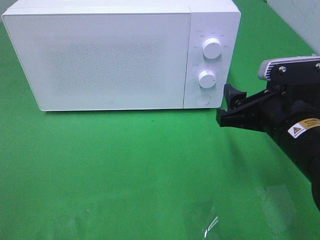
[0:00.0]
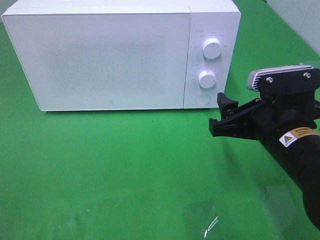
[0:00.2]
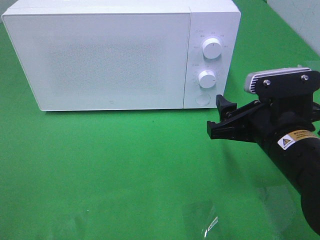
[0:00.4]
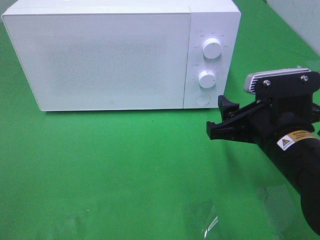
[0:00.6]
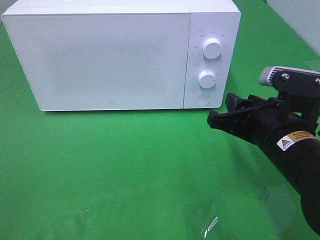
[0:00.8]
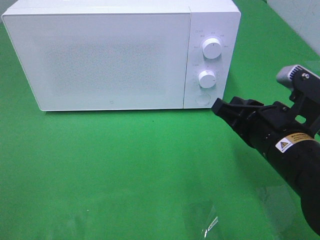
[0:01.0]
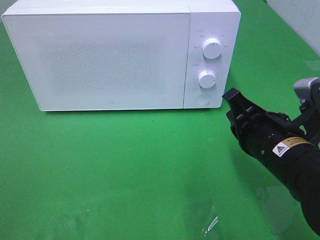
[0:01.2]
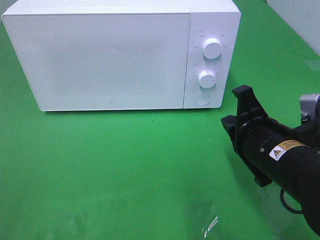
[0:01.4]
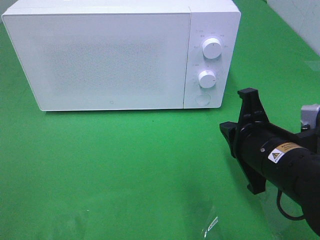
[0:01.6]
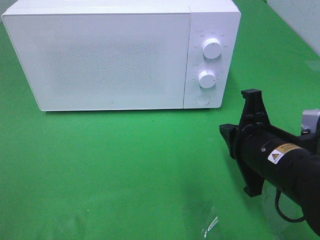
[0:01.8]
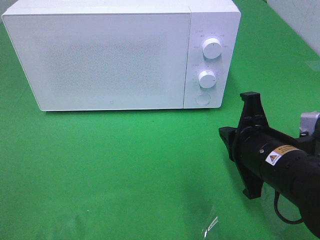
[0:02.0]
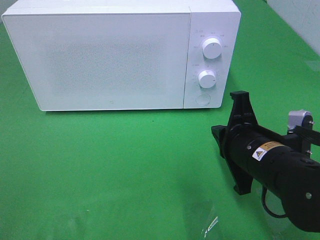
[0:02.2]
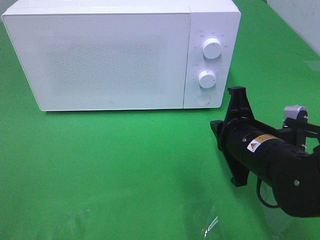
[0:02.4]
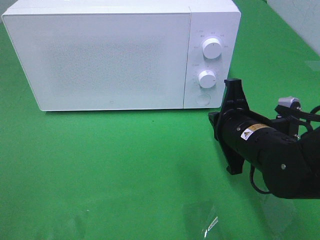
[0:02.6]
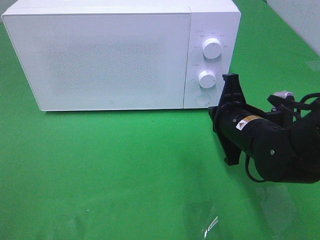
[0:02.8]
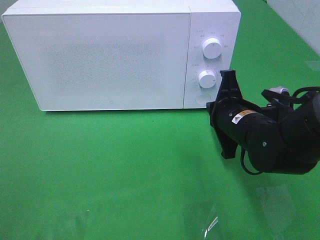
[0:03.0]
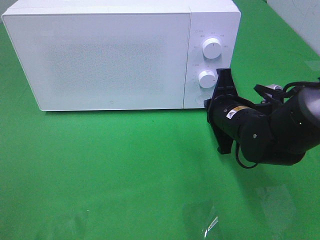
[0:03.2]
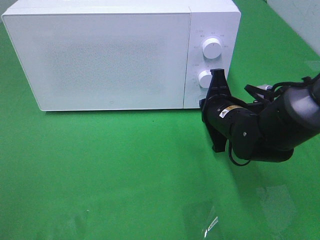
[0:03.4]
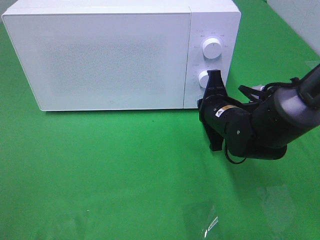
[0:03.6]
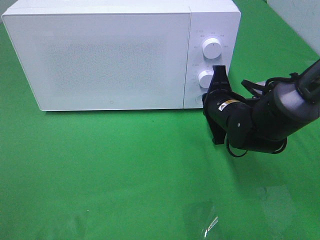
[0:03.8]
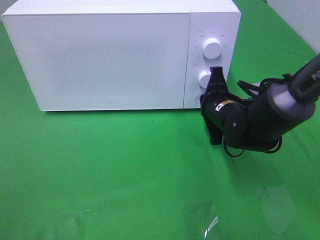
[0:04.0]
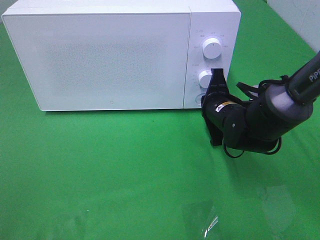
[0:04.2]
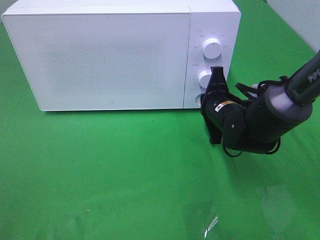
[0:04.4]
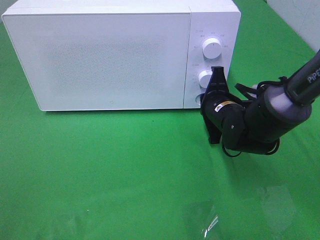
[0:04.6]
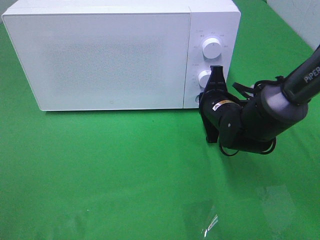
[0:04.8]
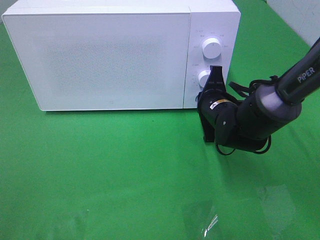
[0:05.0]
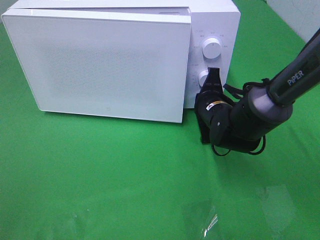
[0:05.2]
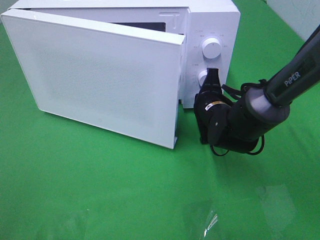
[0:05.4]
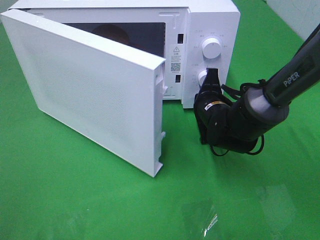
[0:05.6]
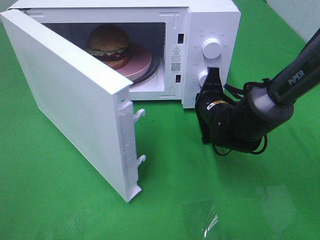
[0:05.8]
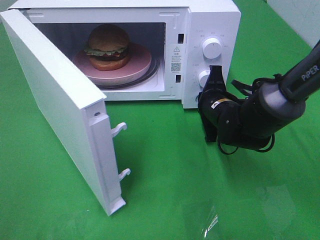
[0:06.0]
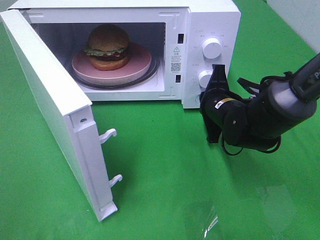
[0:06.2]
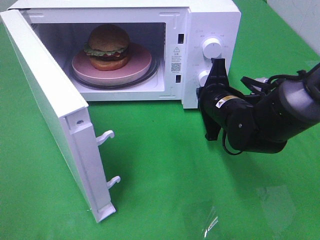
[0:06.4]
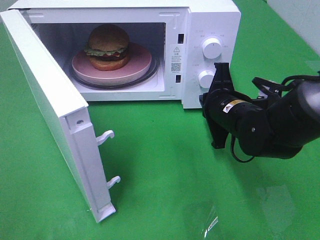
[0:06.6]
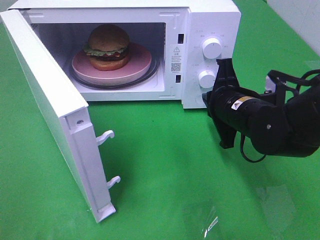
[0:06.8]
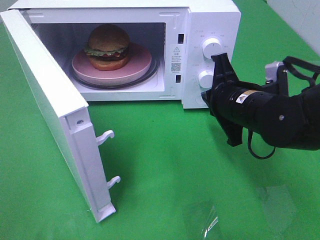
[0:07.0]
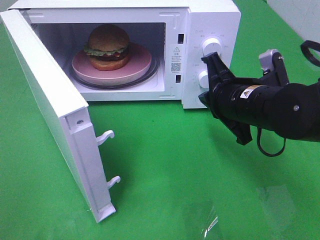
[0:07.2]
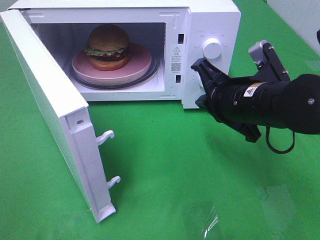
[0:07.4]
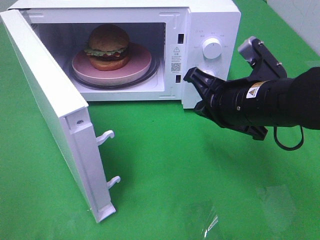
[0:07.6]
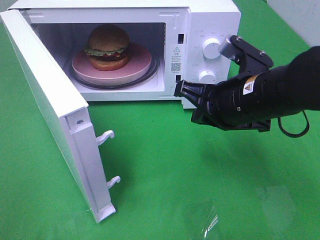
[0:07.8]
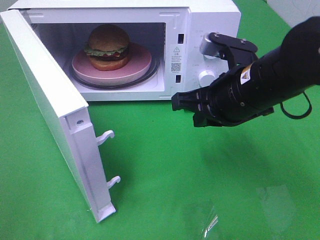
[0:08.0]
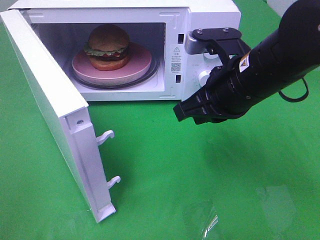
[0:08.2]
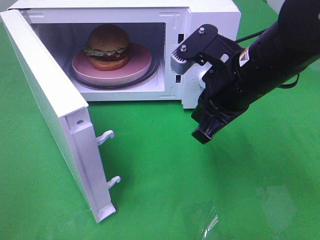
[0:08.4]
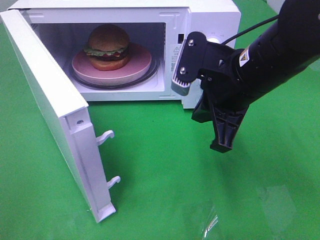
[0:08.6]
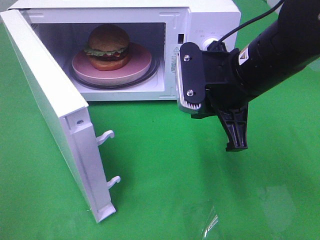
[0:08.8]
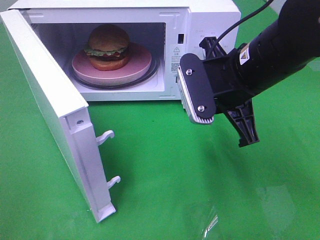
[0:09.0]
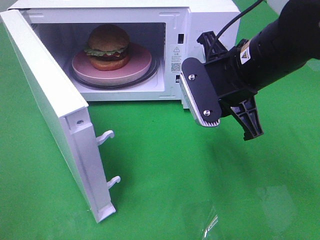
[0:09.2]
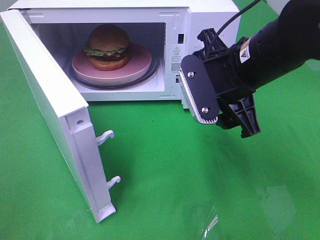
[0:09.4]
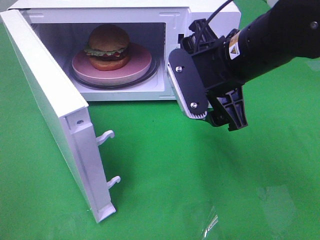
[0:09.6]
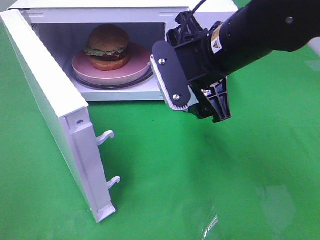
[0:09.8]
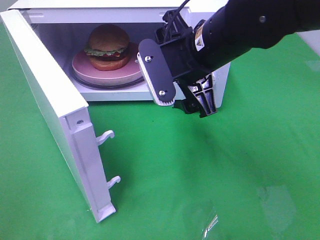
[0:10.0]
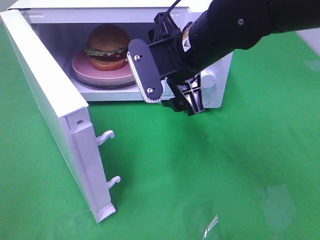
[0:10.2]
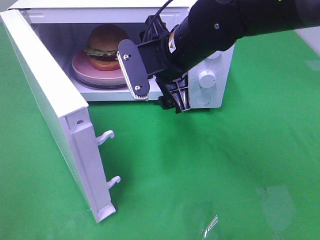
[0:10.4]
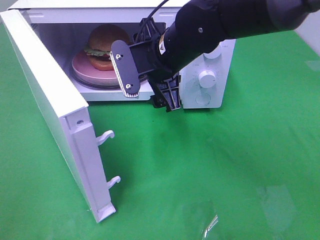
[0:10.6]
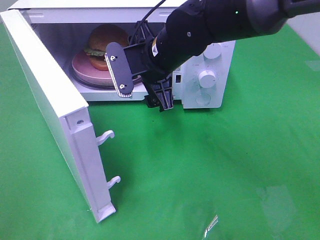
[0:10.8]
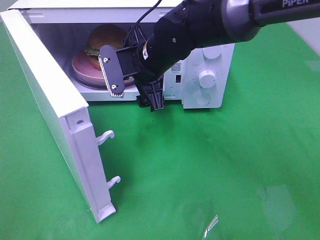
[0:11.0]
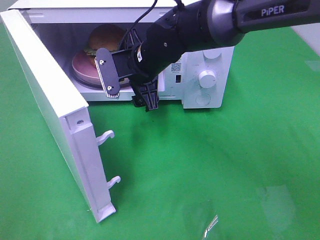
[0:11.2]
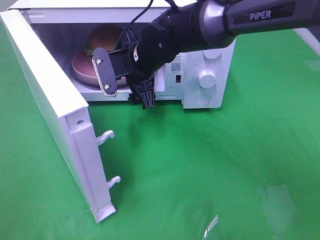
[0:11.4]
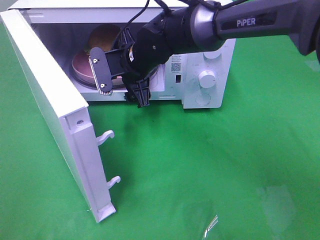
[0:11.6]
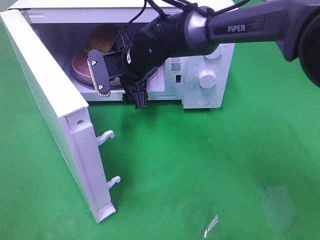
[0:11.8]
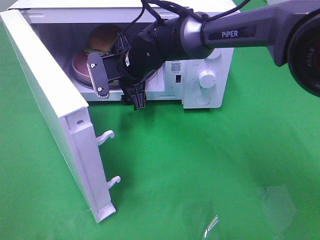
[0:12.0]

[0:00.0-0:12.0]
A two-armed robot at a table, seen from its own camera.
Task of the whole recording: Heat the burger.
Step, 0:00.0 to 0:06.2: Right hand: press the switch.
0:00.0 to 0:01.6: The right gripper closes up.
0:01.6 to 0:03.0: The right gripper travels forward by roughly 10 cm.
0:03.0 to 0:04.4: The right gripper shifts approximately 5 cm forward.
0:06.0 to 0:07.6: The right gripper heads upward and backward, covering some 15 cm.
0:07.6 to 0:09.0: The right gripper moves some 5 cm.
0:09.0 to 0:10.4: The right gripper goes approximately 10 cm to the left and forward, and opens up.
0:10.4 to 0:12.0: The right gripper goes some 15 cm forward, downward and to the left.

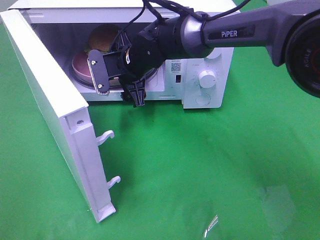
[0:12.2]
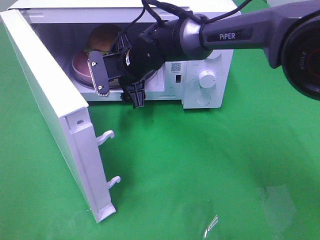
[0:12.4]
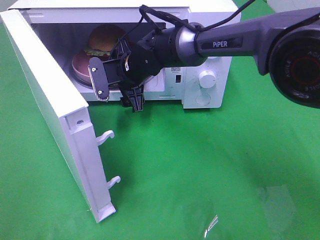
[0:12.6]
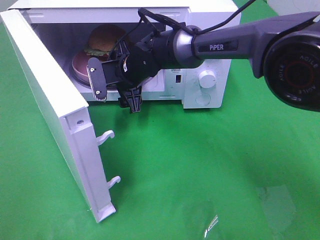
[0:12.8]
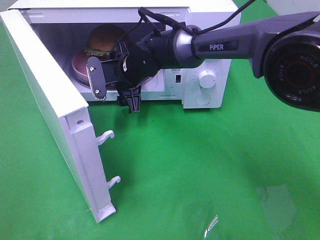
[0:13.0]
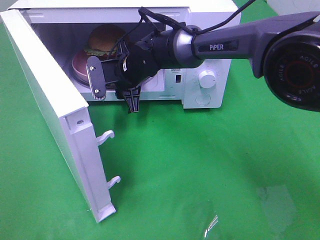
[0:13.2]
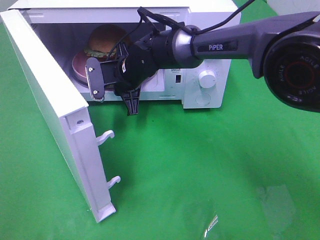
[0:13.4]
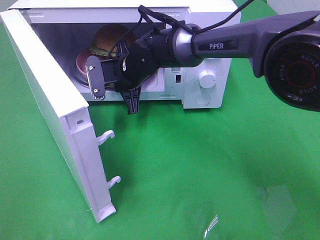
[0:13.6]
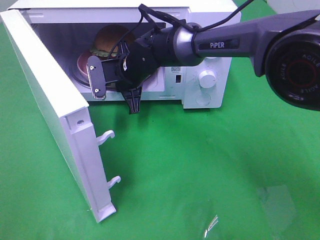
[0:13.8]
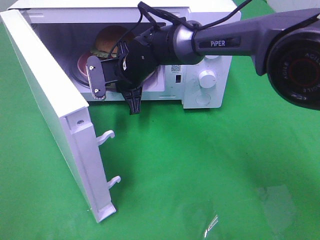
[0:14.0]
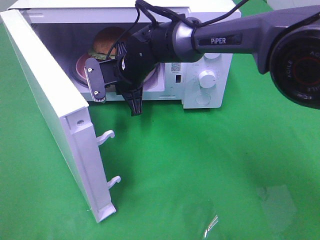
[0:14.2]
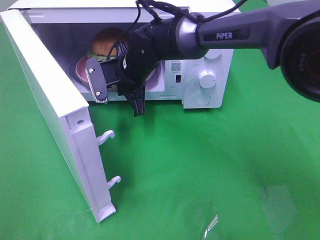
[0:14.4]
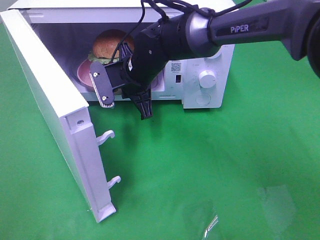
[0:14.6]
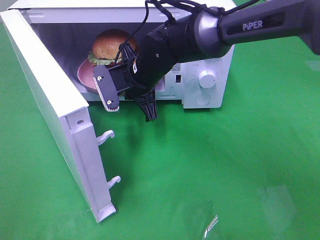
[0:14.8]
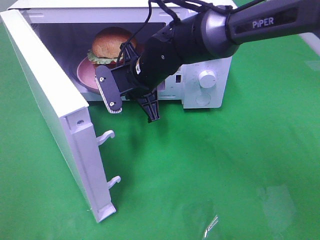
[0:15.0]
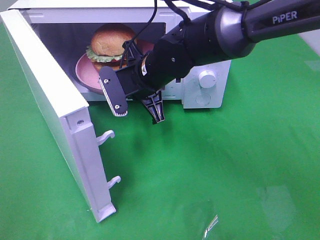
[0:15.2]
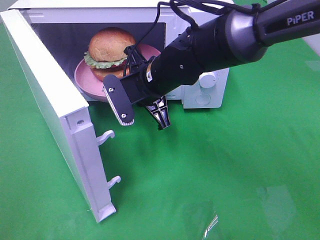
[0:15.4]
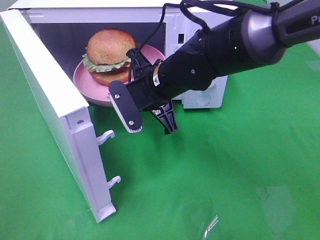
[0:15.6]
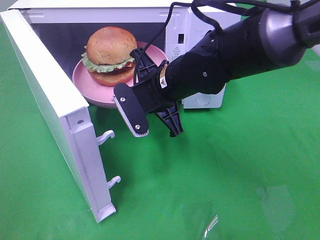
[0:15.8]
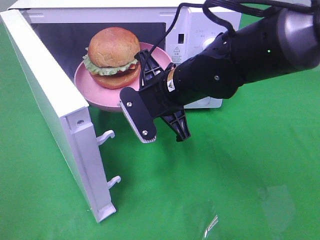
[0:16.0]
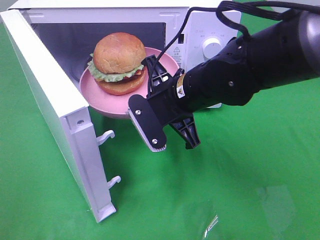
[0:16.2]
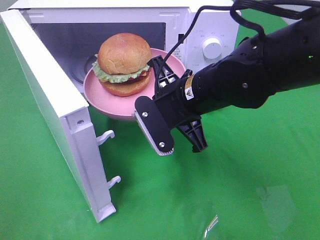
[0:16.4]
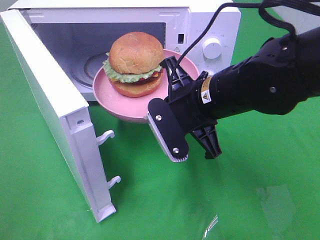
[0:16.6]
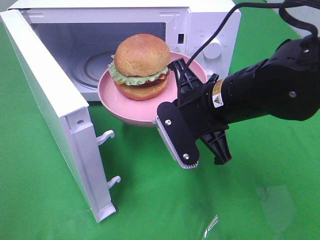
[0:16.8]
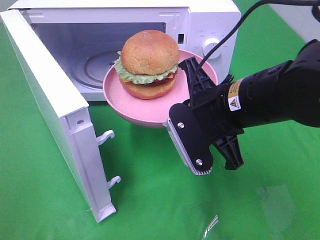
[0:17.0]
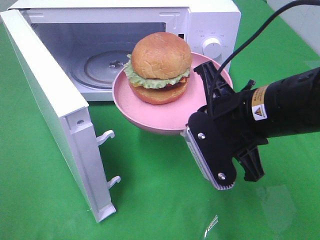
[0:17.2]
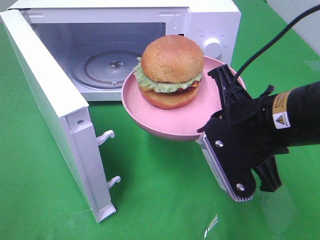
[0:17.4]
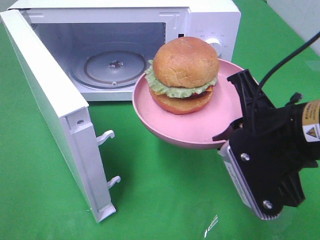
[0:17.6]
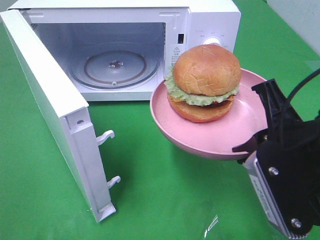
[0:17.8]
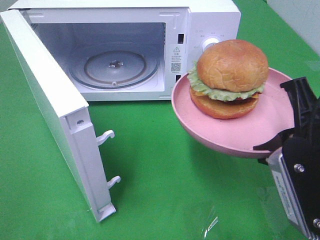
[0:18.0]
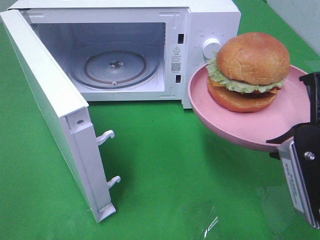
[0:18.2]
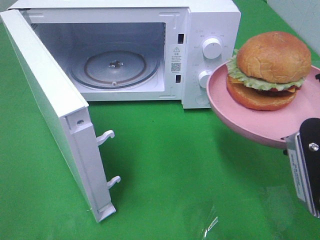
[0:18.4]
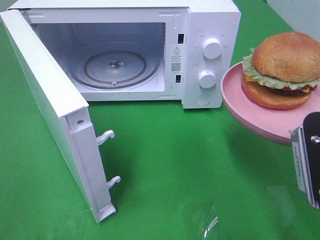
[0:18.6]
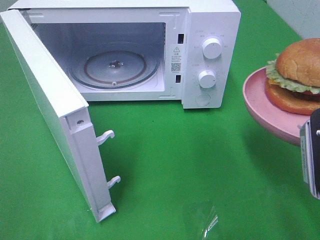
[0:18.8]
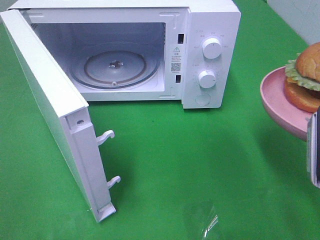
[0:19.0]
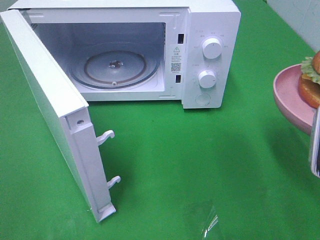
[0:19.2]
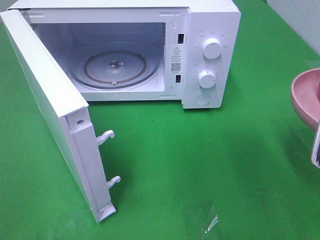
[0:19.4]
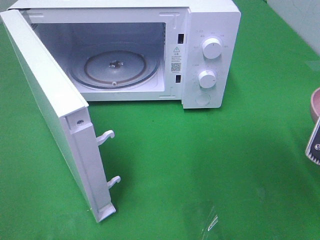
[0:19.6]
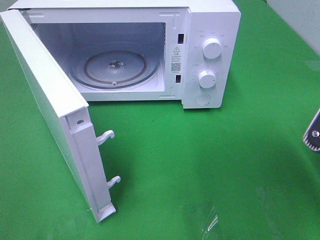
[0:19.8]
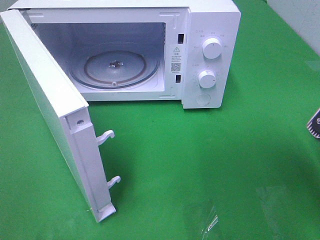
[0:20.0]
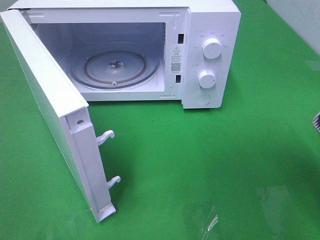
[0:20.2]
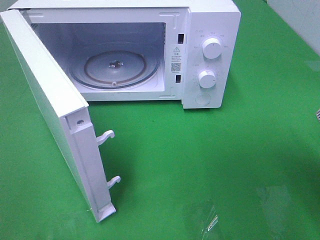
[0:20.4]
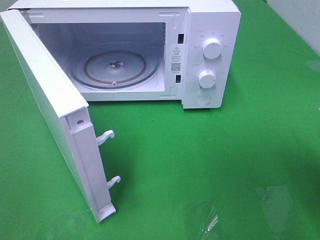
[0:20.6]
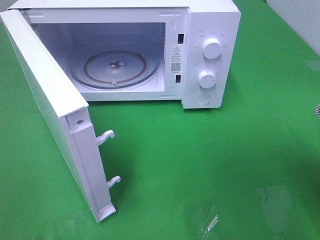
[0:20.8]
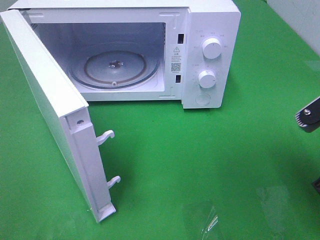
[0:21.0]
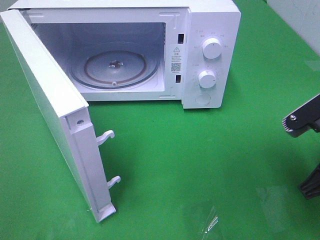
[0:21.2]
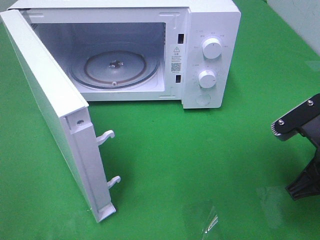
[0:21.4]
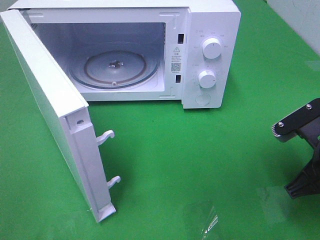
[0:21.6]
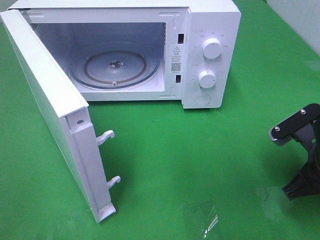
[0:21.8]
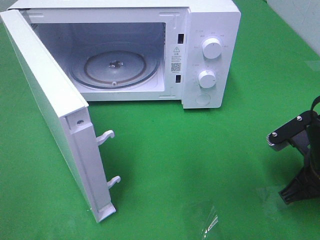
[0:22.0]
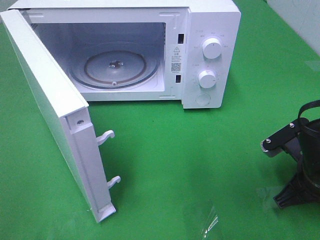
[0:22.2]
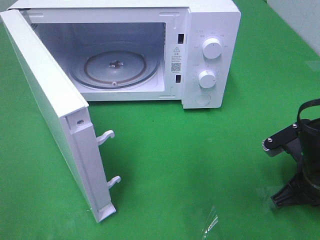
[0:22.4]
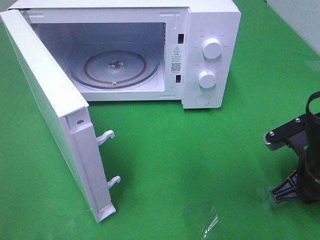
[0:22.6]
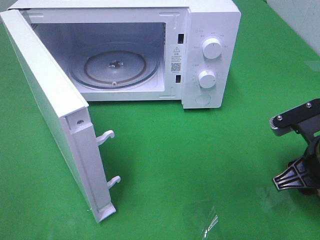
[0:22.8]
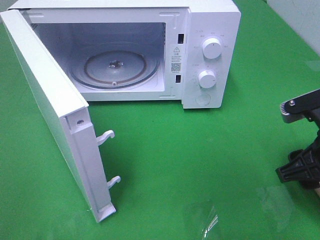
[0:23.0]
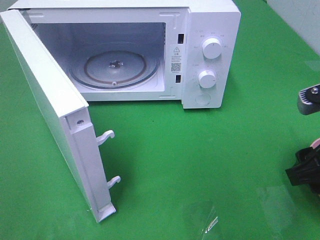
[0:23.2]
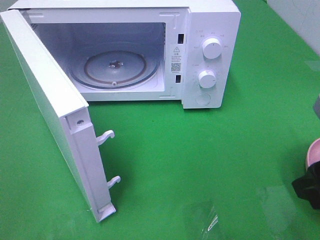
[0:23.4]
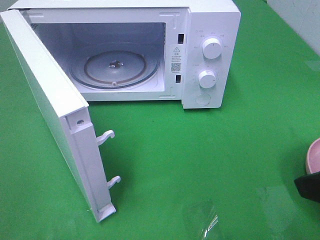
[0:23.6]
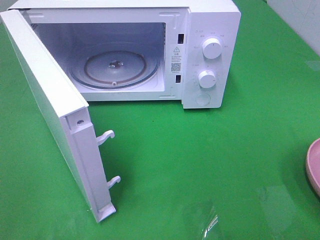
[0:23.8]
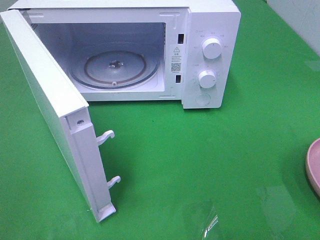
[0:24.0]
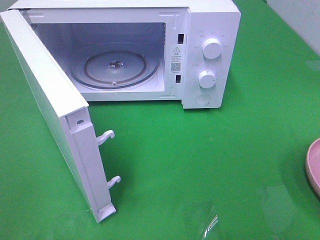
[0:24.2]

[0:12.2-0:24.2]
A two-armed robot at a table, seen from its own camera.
Task of the whole recording: Heat the burger.
Step, 0:13.8 to 0:23.0: Right hand: place the plate on the table.
0:12.2 to 0:13.8: The right gripper closes its fingers.
0:13.8 to 0:15.2: The right gripper moves backward, about 5 cm.
0:15.2 to 0:16.6: The right gripper moves backward and to the right, roughly 15 cm.
0:16.6 to 0:18.2: The right gripper travels to the right and backward by approximately 20 cm.
0:19.8 to 0:21.2: The right gripper moves approximately 5 cm.
0:21.2 to 0:22.6: The right gripper is displaced downward by some 5 cm, and opens up.
0:22.6 to 0:24.2: The right gripper shifts some 25 cm upward and backward.
